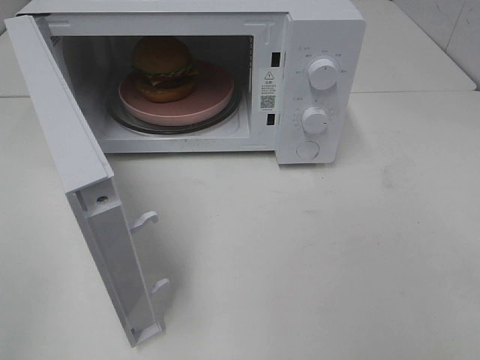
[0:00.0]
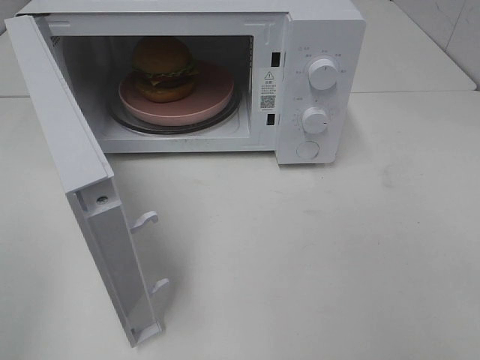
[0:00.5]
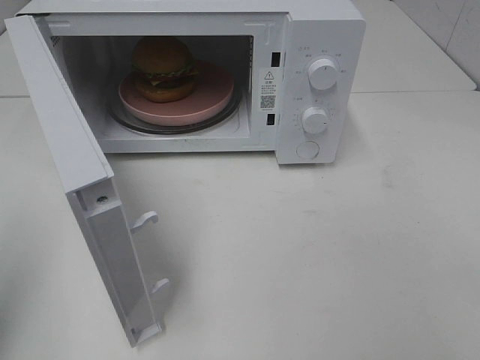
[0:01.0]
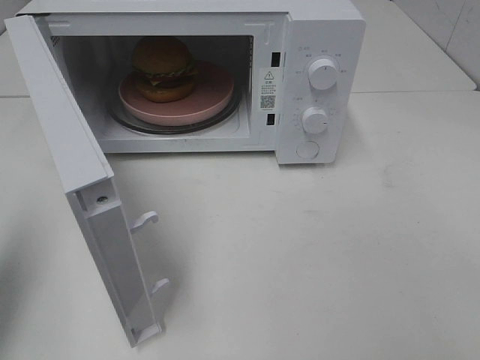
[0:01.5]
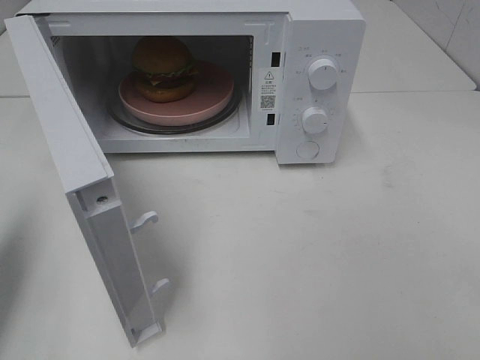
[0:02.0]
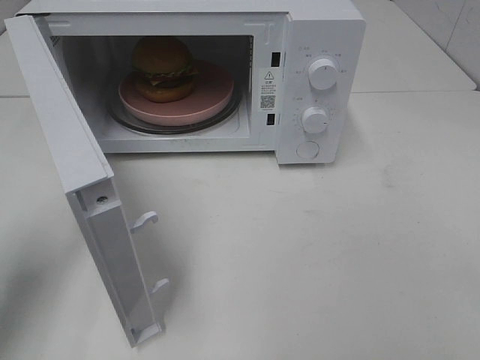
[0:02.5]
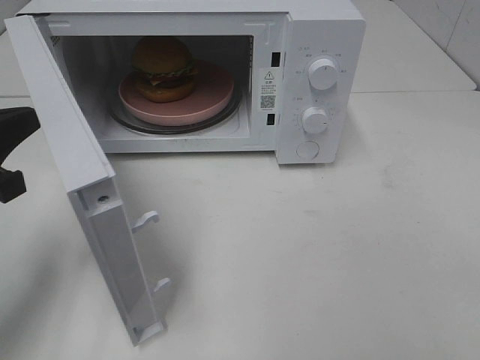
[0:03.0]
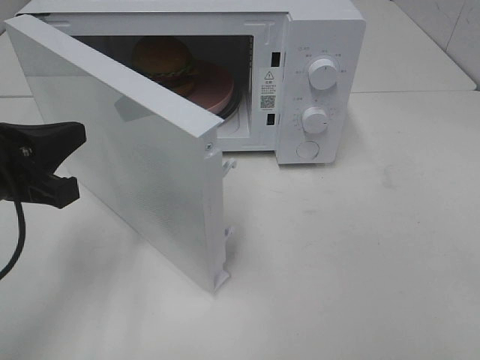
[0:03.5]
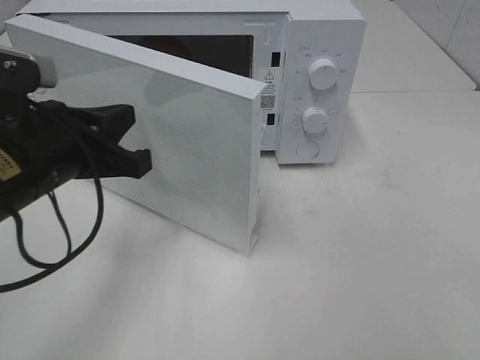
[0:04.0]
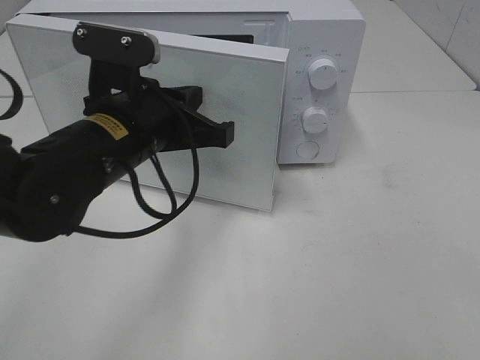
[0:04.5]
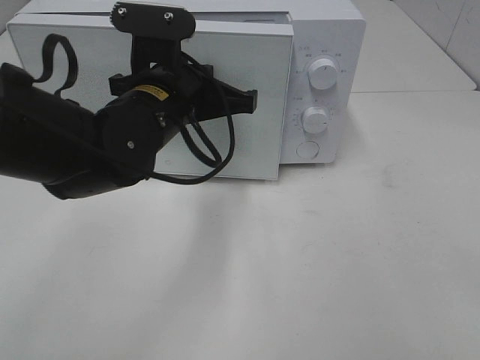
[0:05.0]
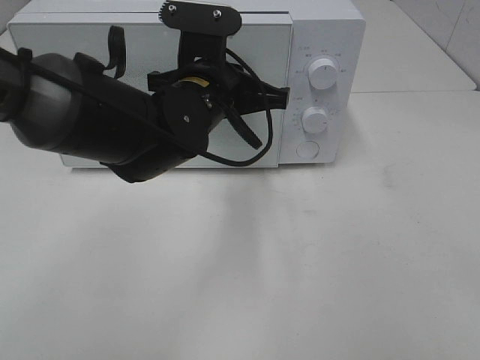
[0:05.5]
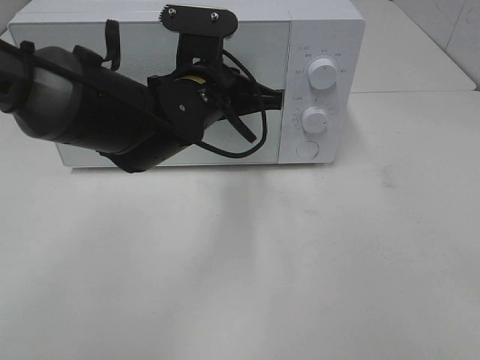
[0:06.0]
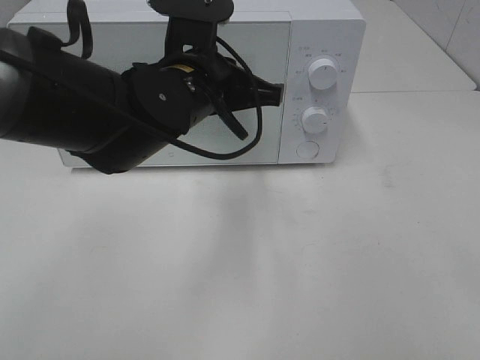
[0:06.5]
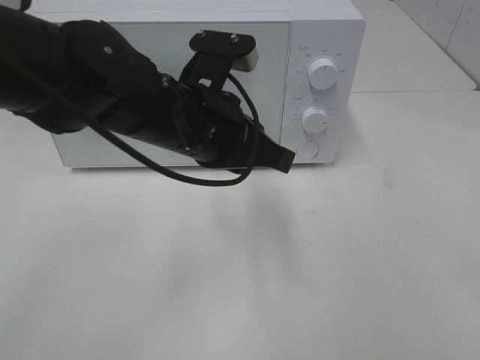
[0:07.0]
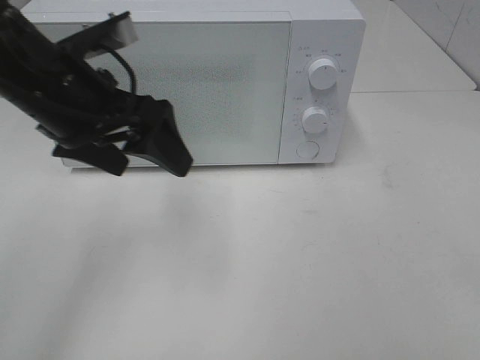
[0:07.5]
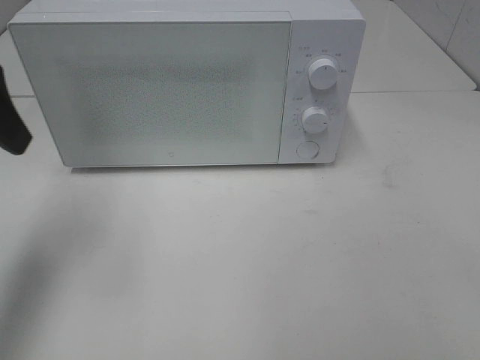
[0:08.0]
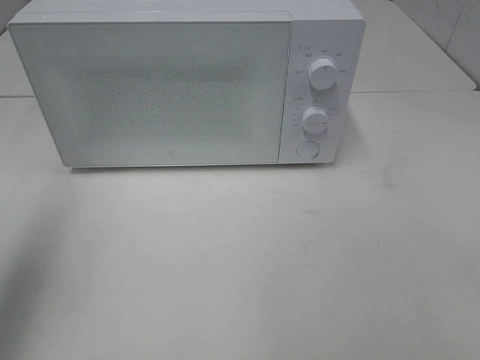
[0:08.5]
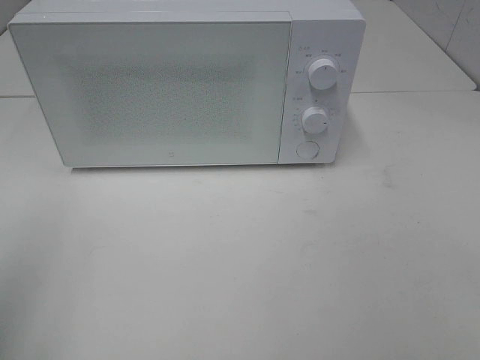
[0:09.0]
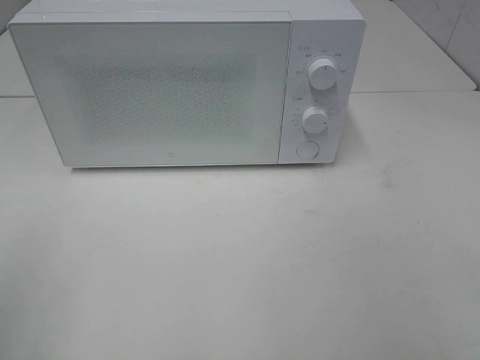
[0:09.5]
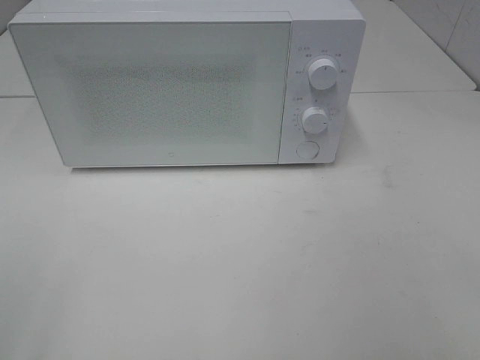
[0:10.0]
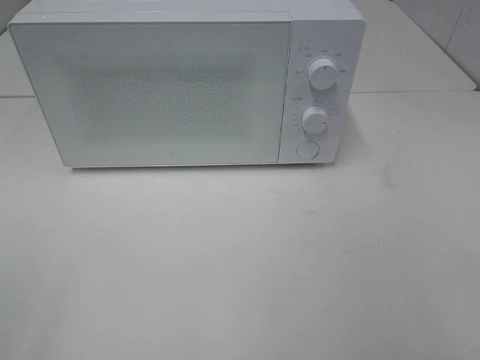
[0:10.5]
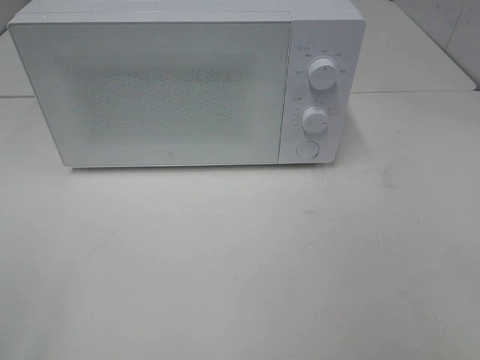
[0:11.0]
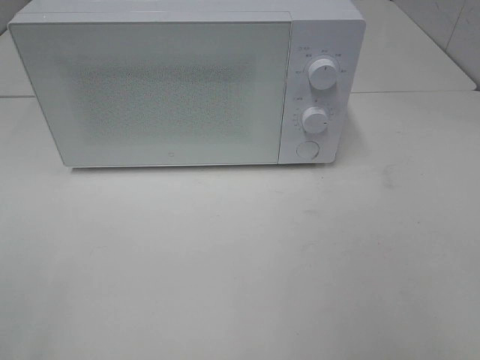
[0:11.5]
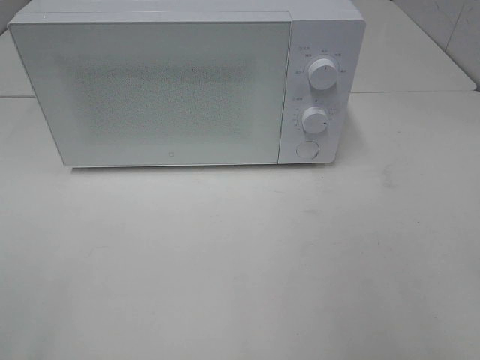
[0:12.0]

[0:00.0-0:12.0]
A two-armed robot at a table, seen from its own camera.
Task of the whole recording: Heat the burger.
Step, 0:00.0 to 0:06.5: Left hand: close the microwave door.
0:00.0 to 0:02.0: The left gripper moves forward, approximately 20 cm, and closes its fingers.
0:02.0 to 0:04.0: The left gripper shifts about 15 cm to the right.
0:04.0 to 0:06.0: The left gripper shifts roughly 20 cm to the right and forward.
0:06.0 to 0:08.0: The left gripper is displaced to the left and upward by approximately 25 cm, and opens up.
0:08.0 to 0:10.0: The left gripper goes some 25 cm backward.

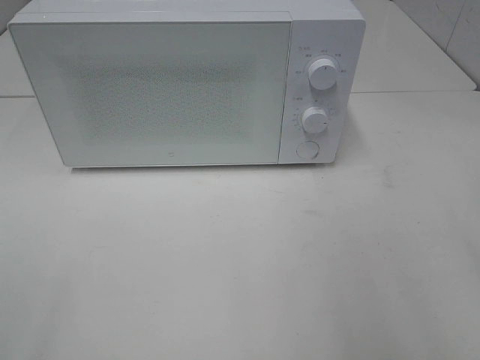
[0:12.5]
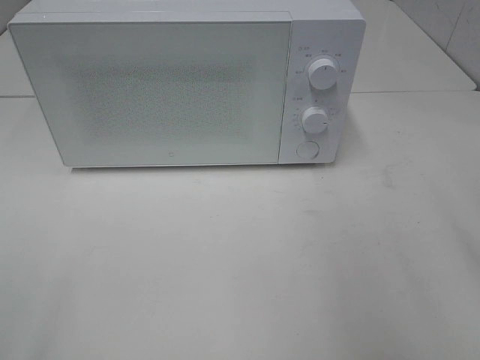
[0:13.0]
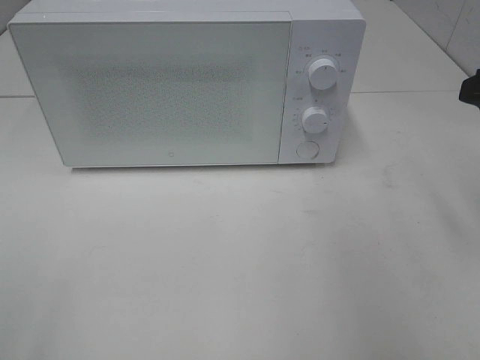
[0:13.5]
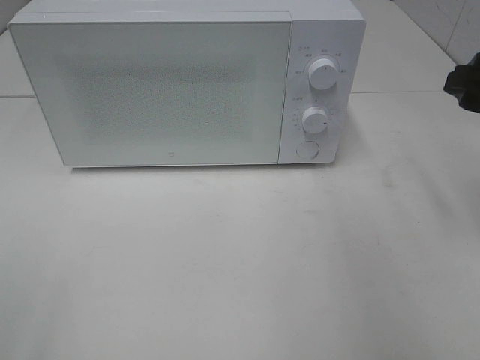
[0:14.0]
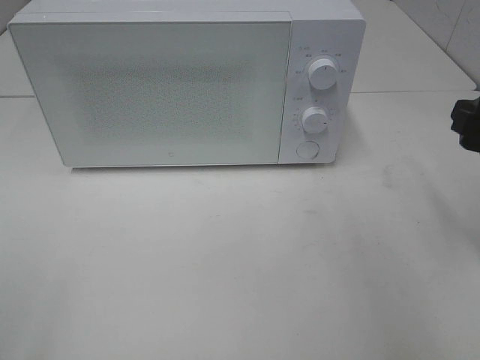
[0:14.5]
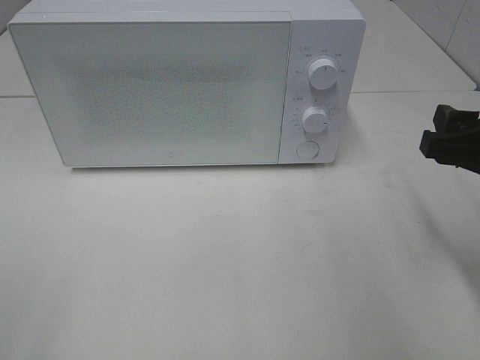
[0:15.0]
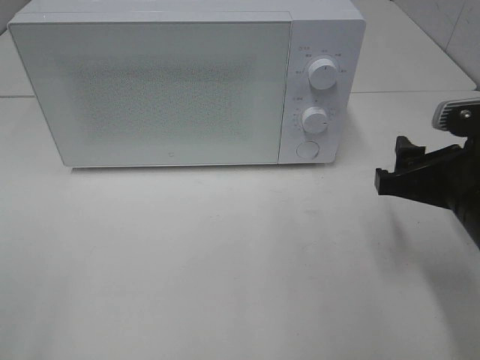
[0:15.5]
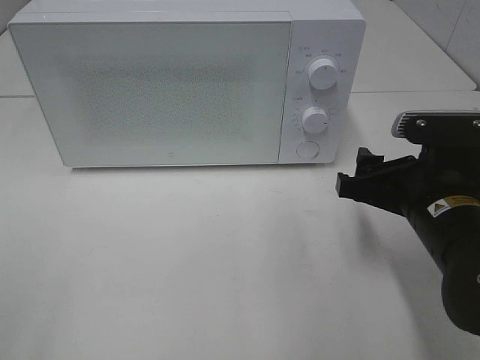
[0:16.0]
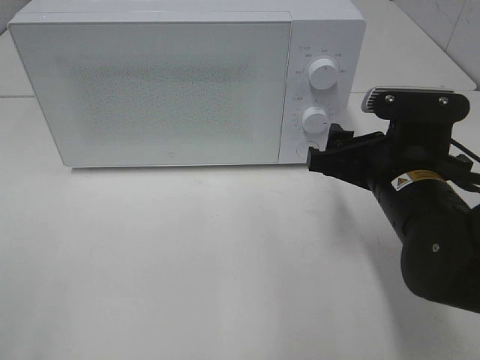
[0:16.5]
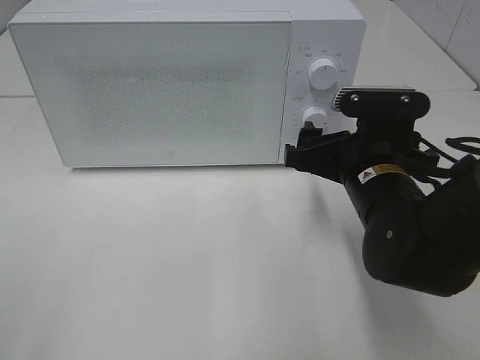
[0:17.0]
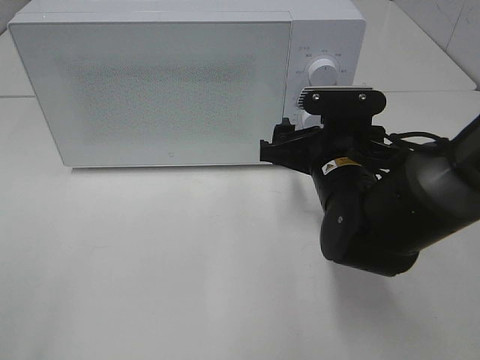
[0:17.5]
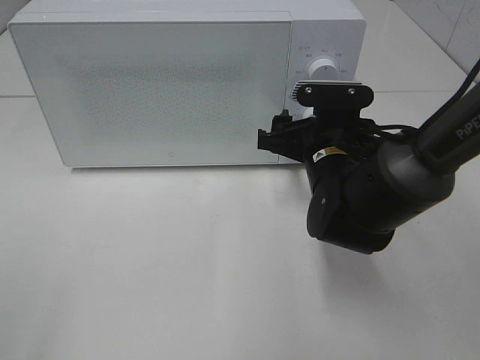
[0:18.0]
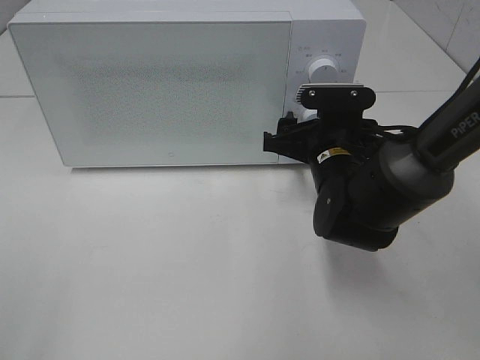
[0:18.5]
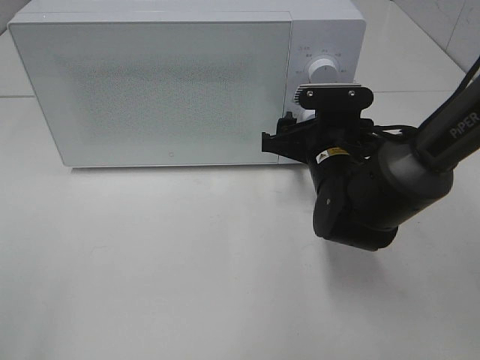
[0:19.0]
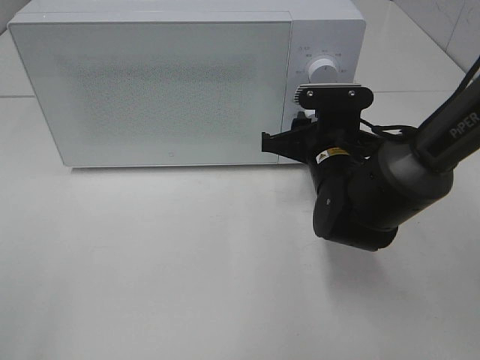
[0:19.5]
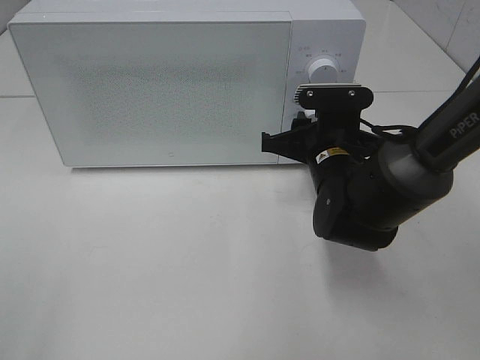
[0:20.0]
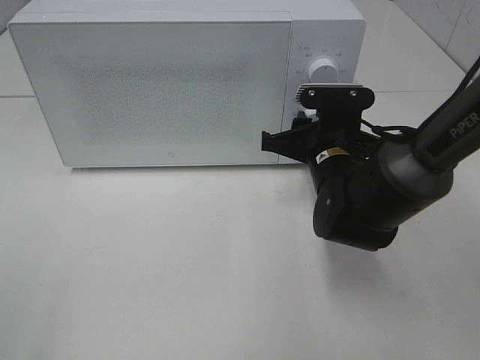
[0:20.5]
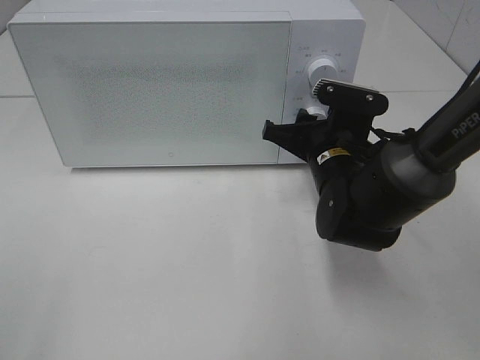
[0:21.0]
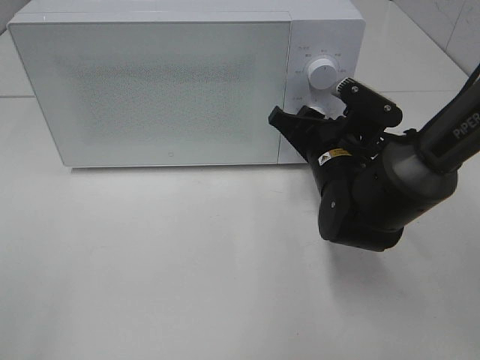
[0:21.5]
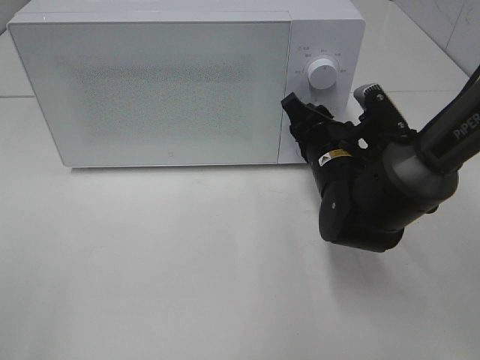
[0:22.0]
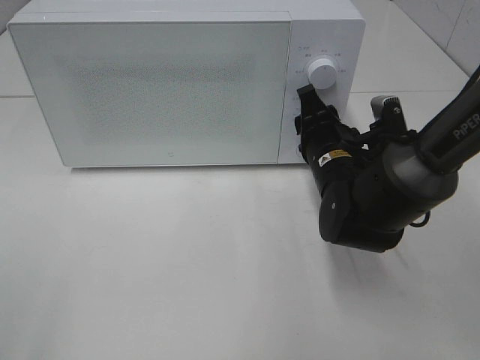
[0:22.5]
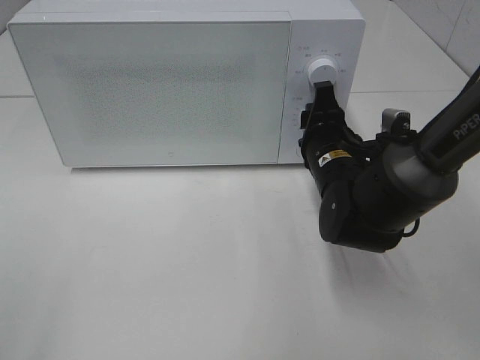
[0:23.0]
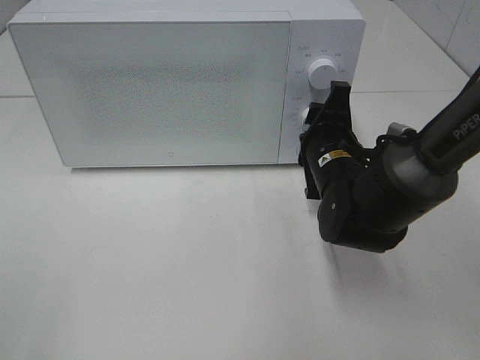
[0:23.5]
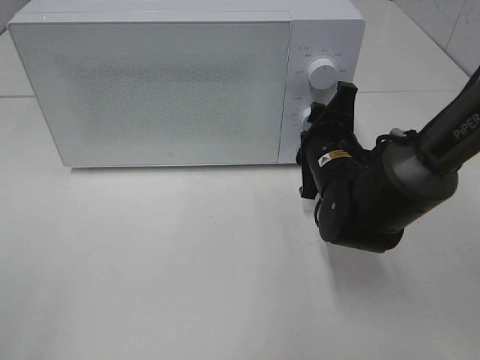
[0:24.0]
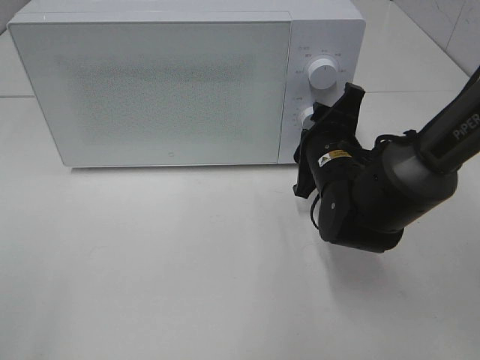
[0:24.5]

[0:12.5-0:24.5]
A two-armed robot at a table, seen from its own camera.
Task of the whole recording: Heat the burger.
0:12.5 to 0:14.5: The right gripper travels downward and forward by some 15 cm.
0:14.5 to 0:16.5: The right gripper goes about 15 cm to the left and downward.
0:16.5 to 0:18.5: The right gripper goes some 10 cm forward.
0:18.5 to 0:20.5: The right gripper closes up.

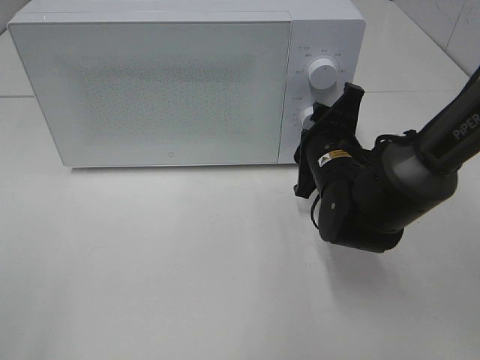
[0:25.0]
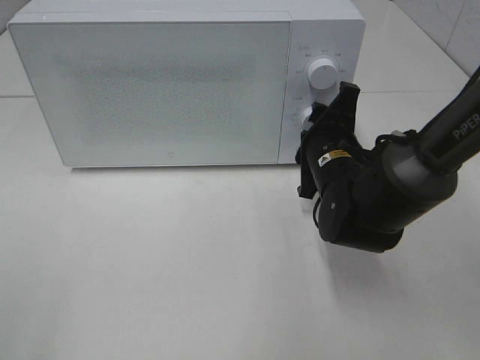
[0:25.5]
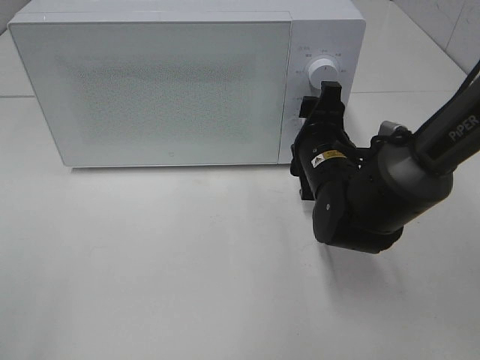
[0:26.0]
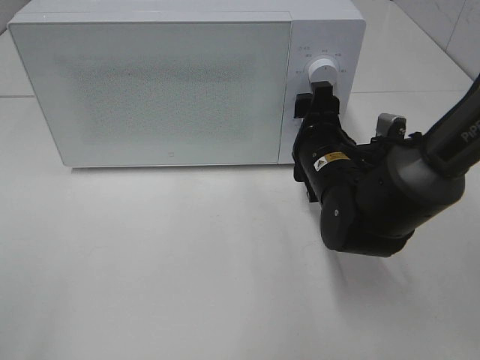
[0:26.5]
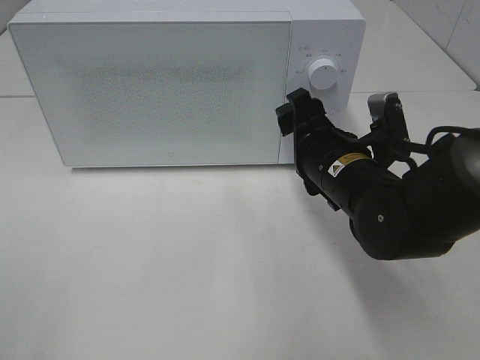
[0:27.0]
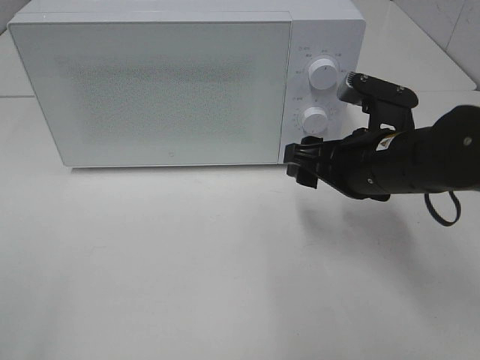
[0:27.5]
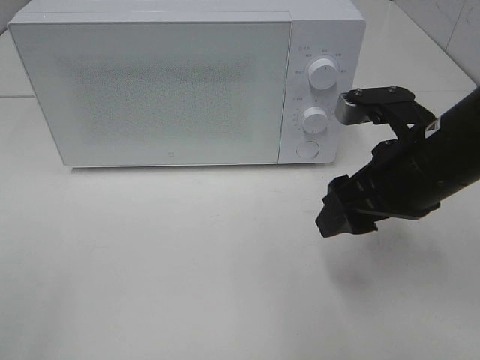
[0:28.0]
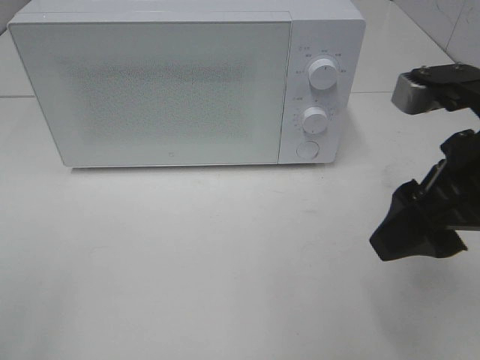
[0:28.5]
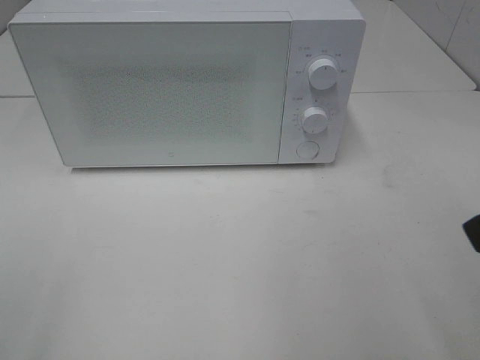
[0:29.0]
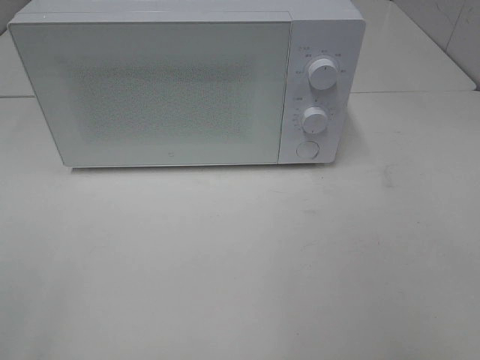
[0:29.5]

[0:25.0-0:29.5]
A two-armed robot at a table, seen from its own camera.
Task of the whole recording: Heat the burger.
0:27.0 to 0:29.5: The right gripper moves backward, upward and to the right, approximately 35 cm.
